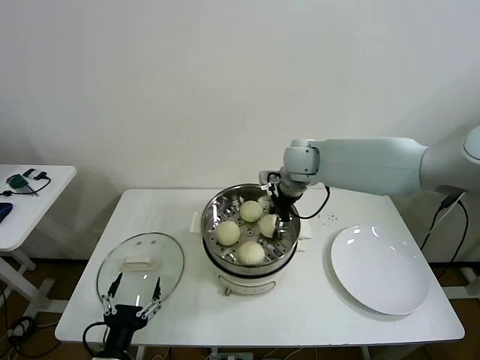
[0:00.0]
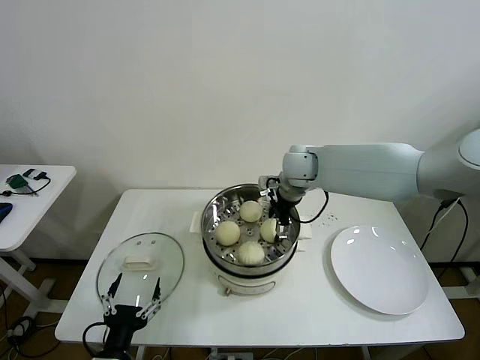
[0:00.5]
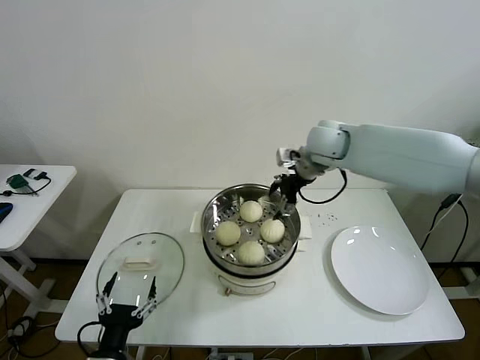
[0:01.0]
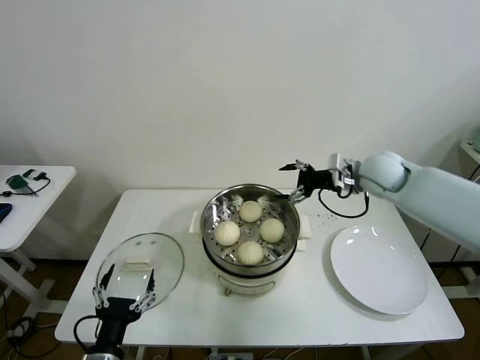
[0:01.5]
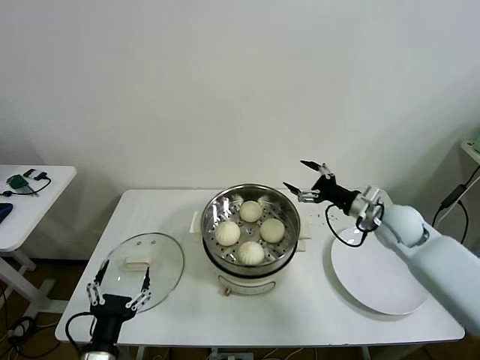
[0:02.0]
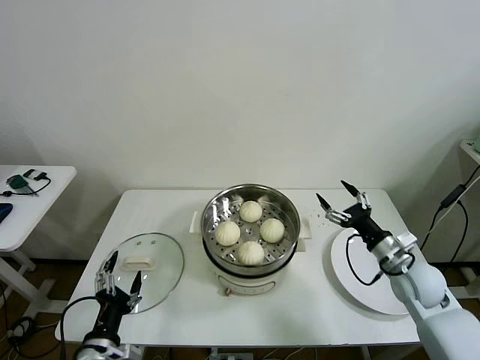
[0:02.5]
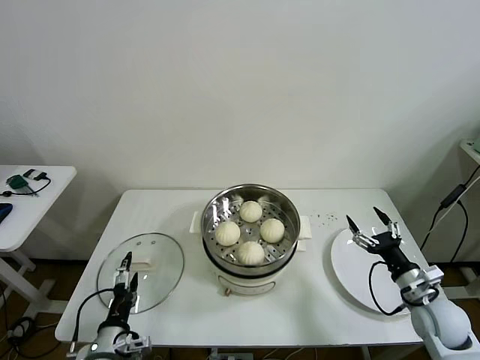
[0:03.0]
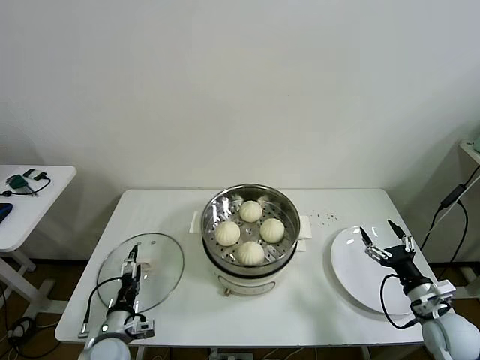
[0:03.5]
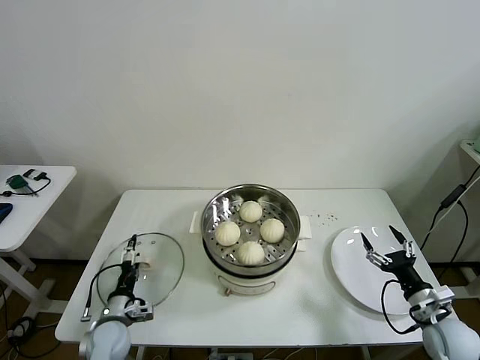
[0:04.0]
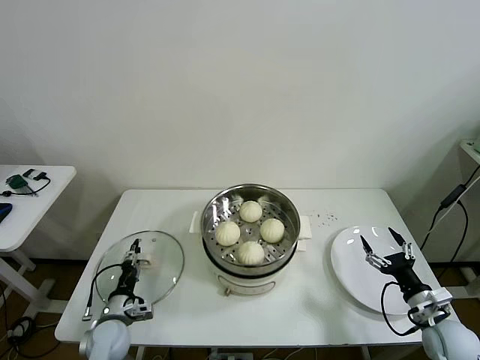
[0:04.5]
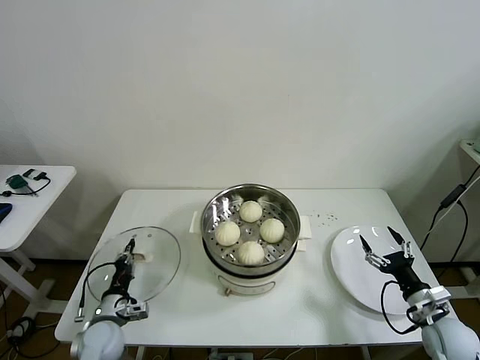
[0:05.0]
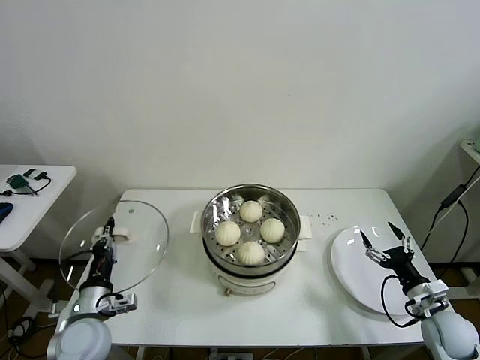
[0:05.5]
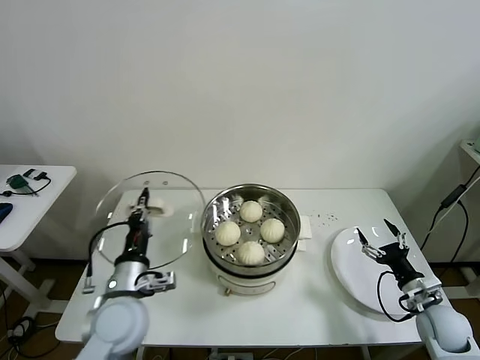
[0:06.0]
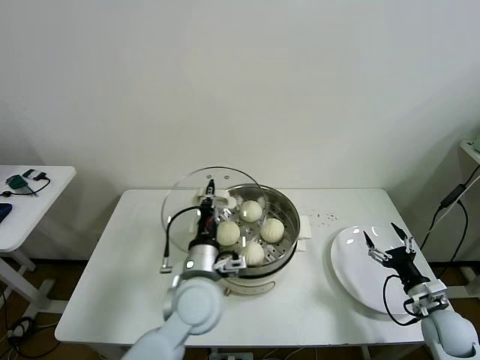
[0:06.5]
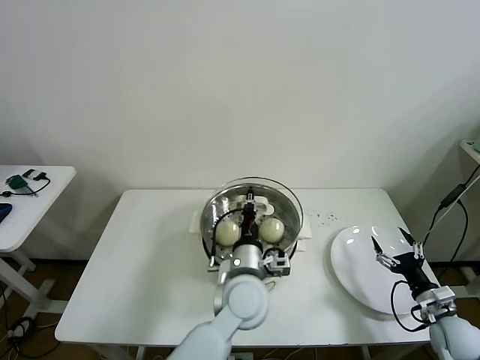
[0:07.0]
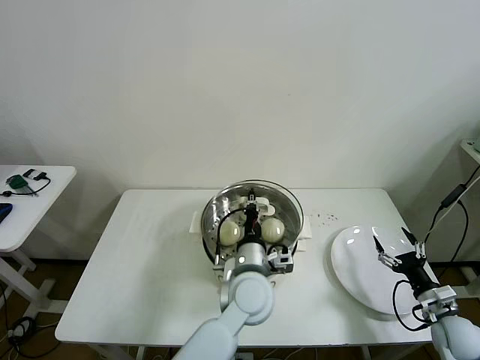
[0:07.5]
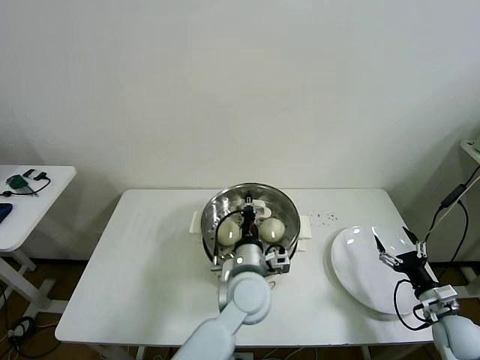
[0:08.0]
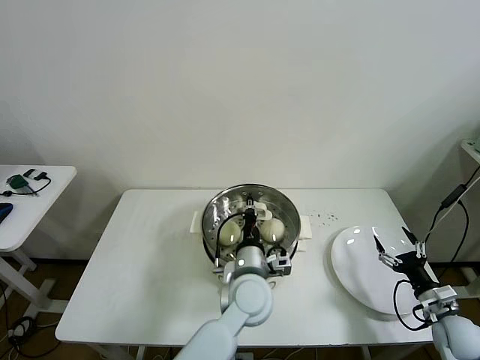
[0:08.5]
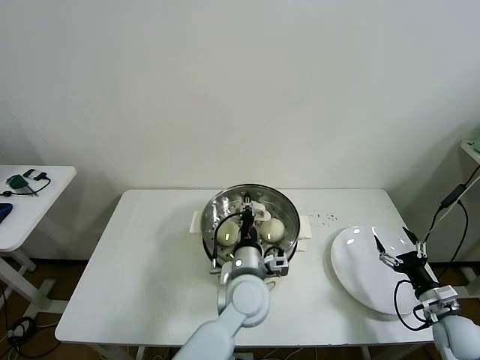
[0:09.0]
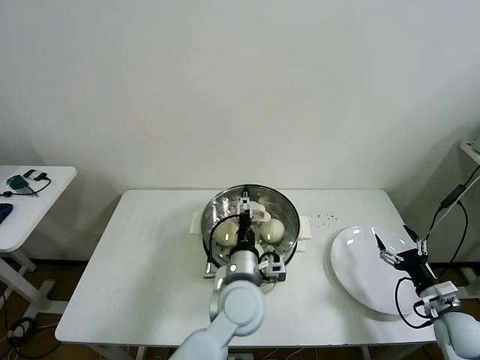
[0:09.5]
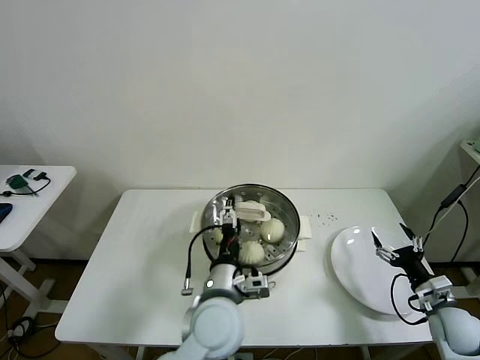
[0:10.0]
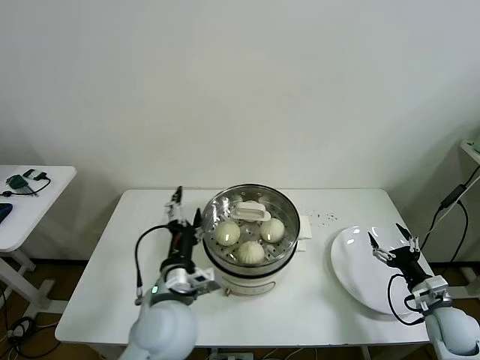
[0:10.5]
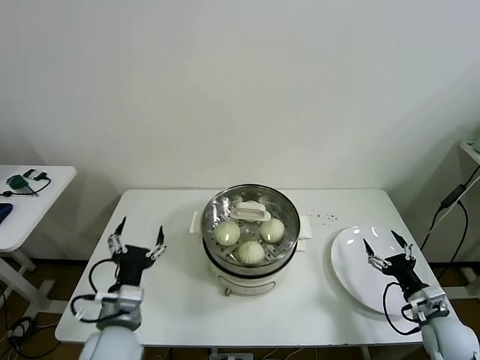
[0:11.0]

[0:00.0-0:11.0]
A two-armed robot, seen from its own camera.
Task of the whole recording: take steamed baozi put them in steamer then cover it.
Step, 0:01.0 to 0:04.5: Grasp the pot lid with left gripper.
Step, 0:05.0 to 0:09.5: Place the pot lid on the steamer with left gripper.
0:00.0 to 0:02.0: The right gripper moves to the right, backward and downward, approximately 25 cm, and opens its fingers.
0:02.0 to 0:03.5: The left gripper heads downward and forward, covering approximately 15 cm. The right gripper heads backward, downward and to the right, covering some 25 cm.
0:03.5 to 0:05.5: The left gripper shifts roughly 10 cm upward, and closes up.
0:05.5 to 0:07.5: The left gripper heads to the right, covering approximately 35 cm.
0:07.5 to 0:09.0: The grippers stay close to where they were, moving slightly.
0:09.0 to 0:11.0: The left gripper goes some 25 cm to the left and backward, and opens up.

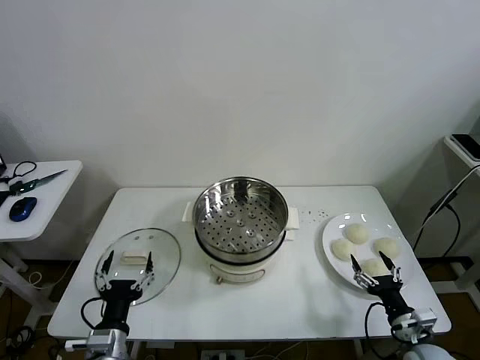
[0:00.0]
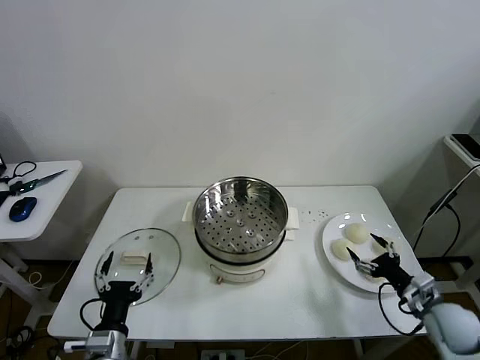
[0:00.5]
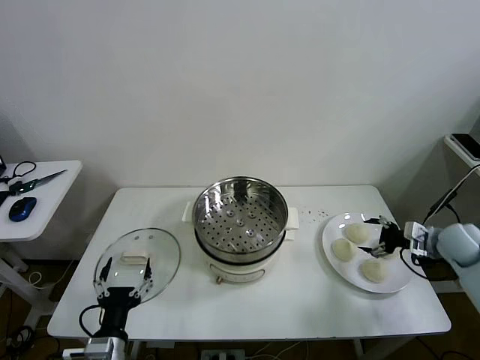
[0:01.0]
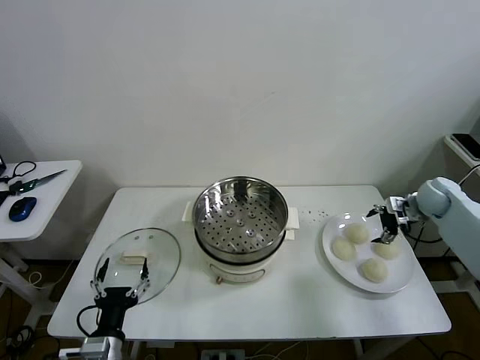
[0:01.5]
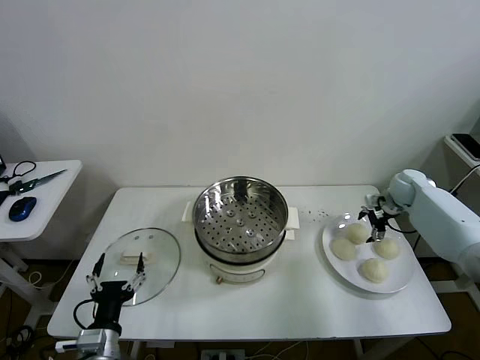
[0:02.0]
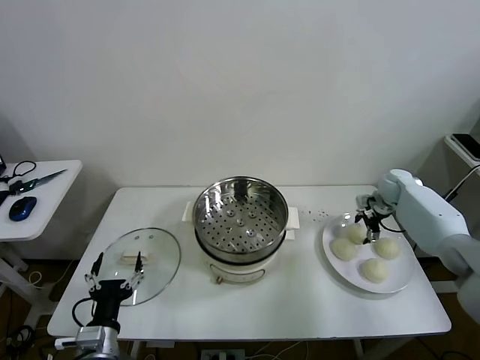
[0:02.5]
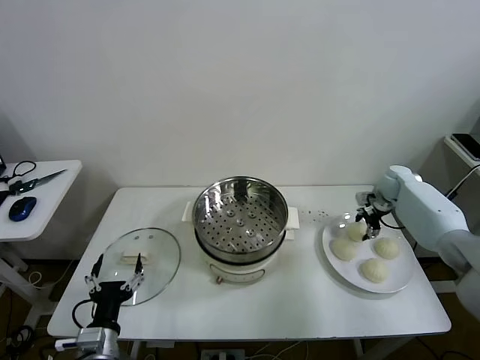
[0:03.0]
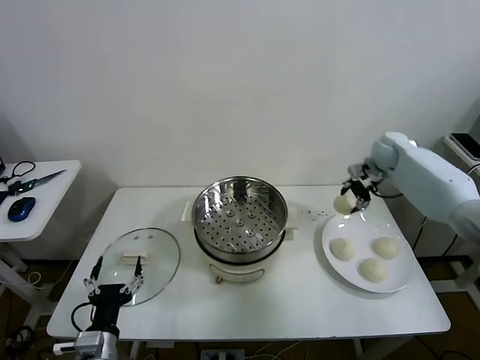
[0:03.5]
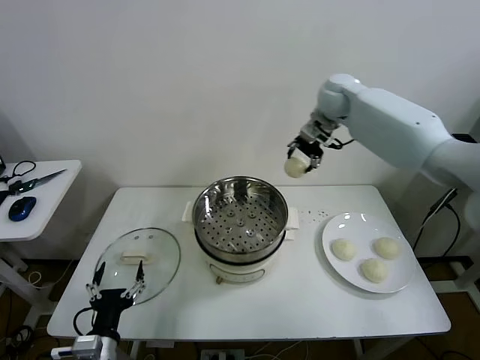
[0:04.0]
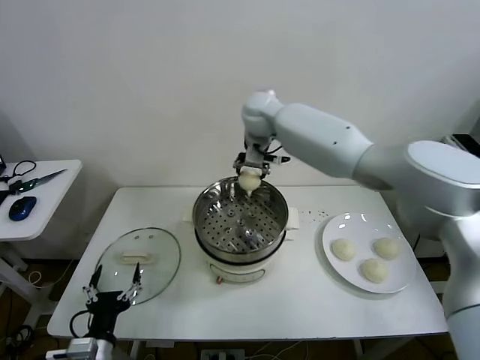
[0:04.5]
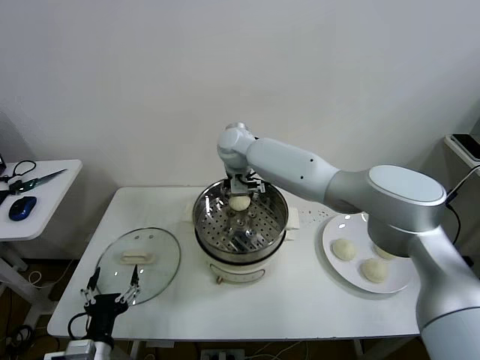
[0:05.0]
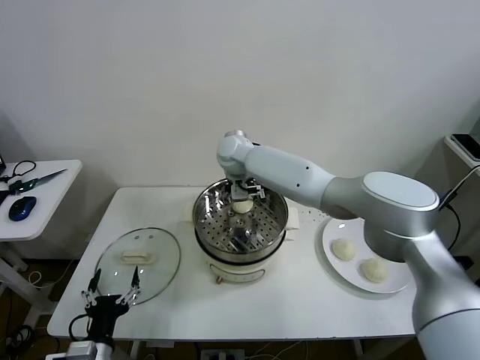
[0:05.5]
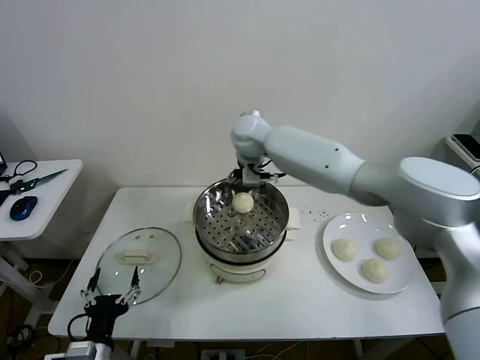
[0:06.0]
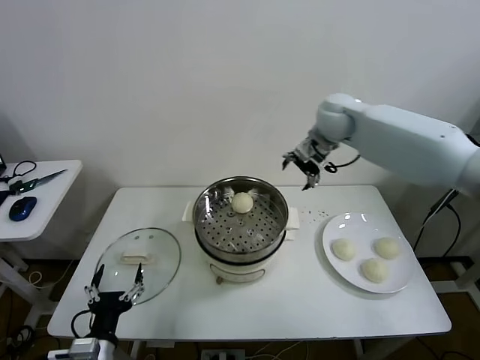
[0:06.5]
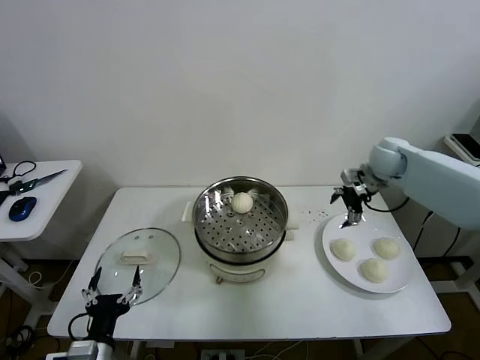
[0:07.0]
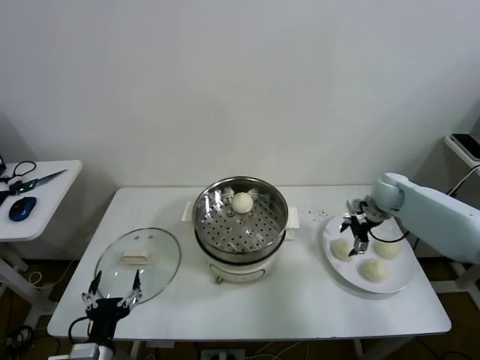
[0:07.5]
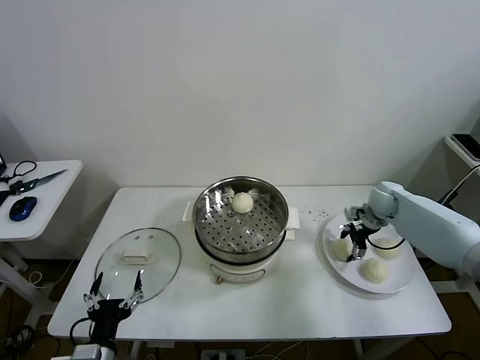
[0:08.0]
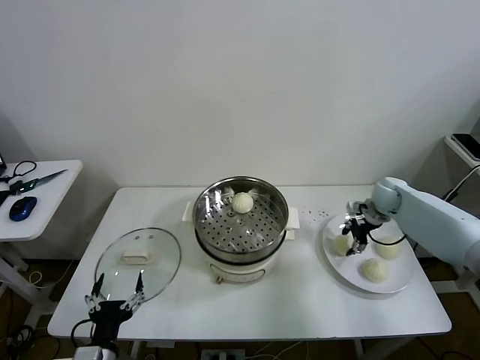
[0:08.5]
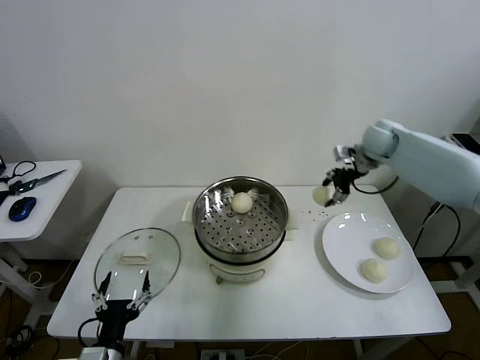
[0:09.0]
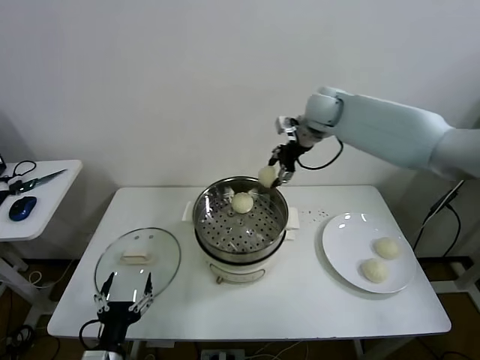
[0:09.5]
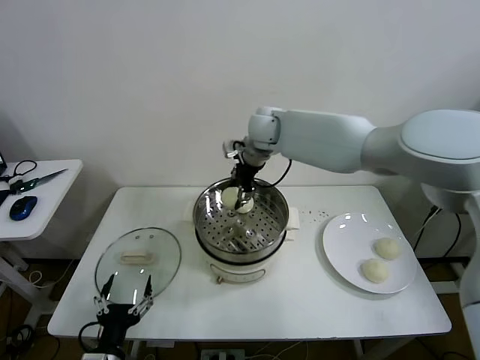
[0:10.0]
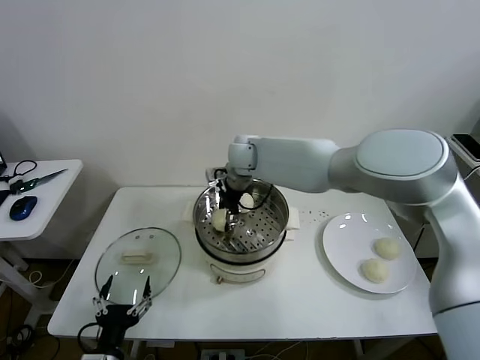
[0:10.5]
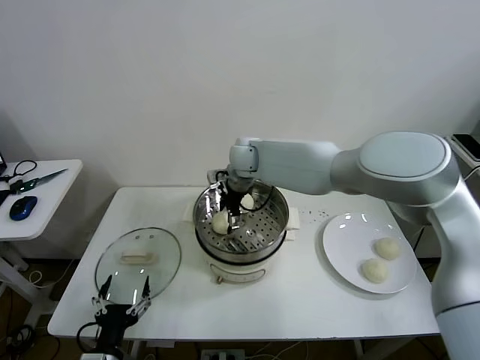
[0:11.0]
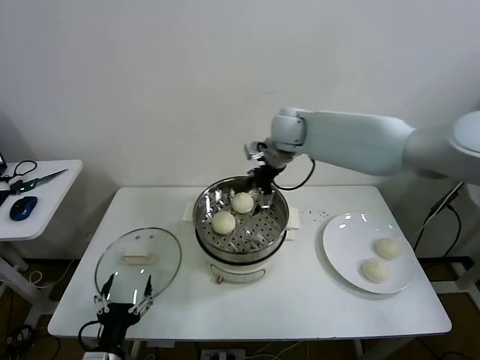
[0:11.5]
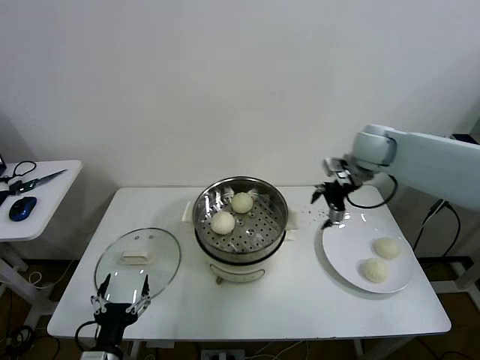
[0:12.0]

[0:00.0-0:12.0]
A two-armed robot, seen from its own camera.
Task of the whole recording: take steamed baozi put them in steamer then cover it.
Step, 0:00.0 to 0:02.5: Grasp the baozi in the plate with right gripper.
Step, 0:03.0 to 0:05.5: Place the baozi on the steamer with right gripper.
Step, 0:06.0 to 0:08.0: Grasp the baozi in the plate with right gripper.
Step, 0:08.5 to 0:10.5: Place the baozi on the steamer with right gripper.
0:02.0 to 0:04.0: The right gripper is displaced to the left and upward by some 35 cm, and closes.
0:04.0 to 0:06.0: The right gripper is displaced to the left and downward by some 15 cm, and opens.
0:06.0 to 0:08.0: The right gripper is displaced to the right and downward by some 40 cm, and closes its fingers.
0:08.0 to 0:10.0: The right gripper travels to the left and upward by roughly 40 cm, and closes its fingers.
0:10.0 to 0:12.0: The right gripper heads to the right, covering some 25 cm, and opens.

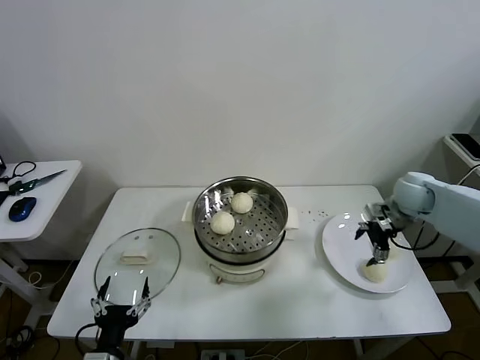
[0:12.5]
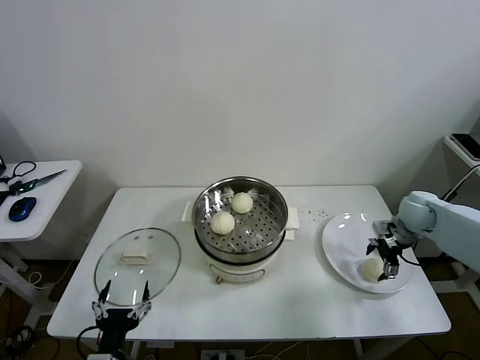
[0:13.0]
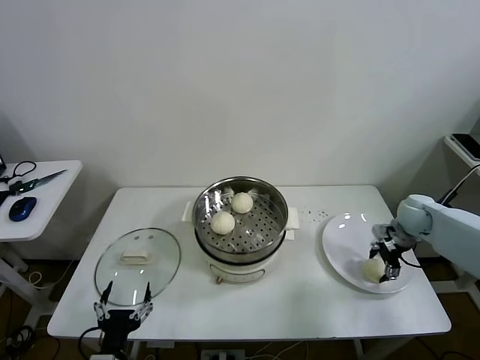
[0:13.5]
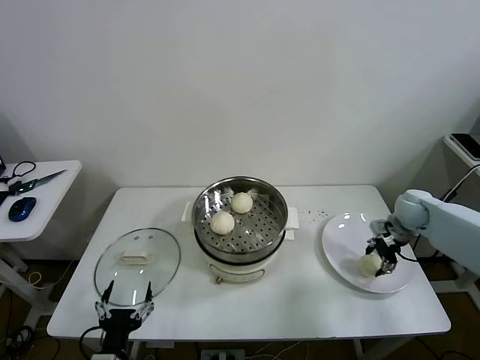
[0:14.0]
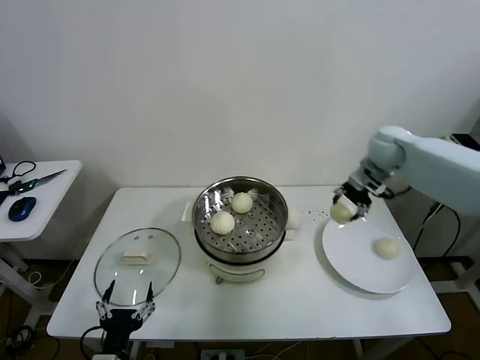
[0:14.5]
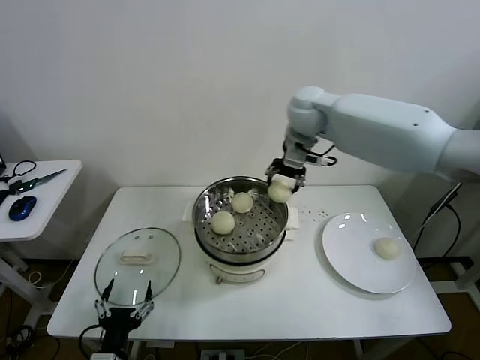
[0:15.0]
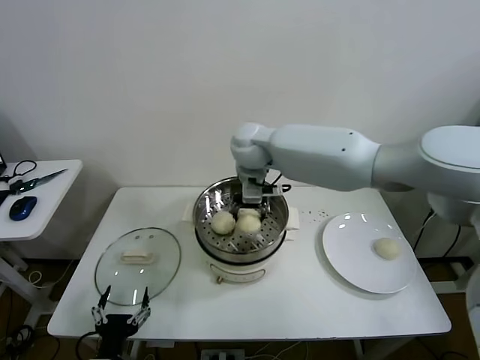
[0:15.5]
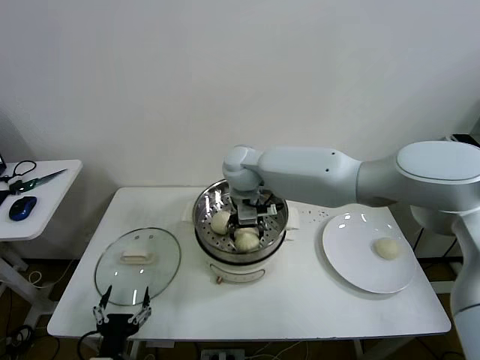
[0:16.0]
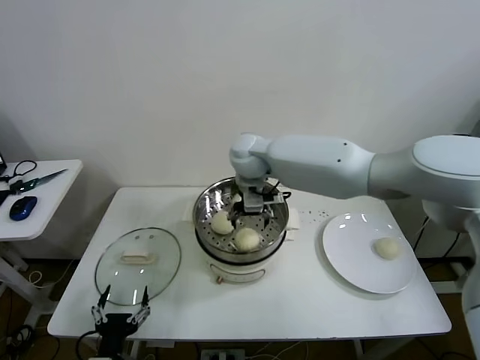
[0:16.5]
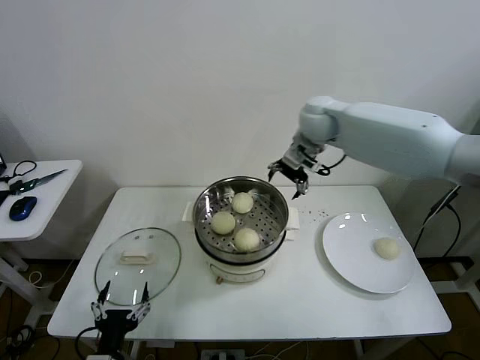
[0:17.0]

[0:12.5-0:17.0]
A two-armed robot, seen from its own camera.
Task of the whole recording: take steamed baozi put them in steamer then cover it.
Step, 0:14.0 to 0:16.0: Place the baozi on the steamer with right gripper.
0:12.5 to 0:14.5: The right gripper moves upward, to the left and forward, roughly 15 cm, and closes up.
0:14.5 to 0:17.0: The right gripper is displaced to the left by roughly 15 cm, and opens.
